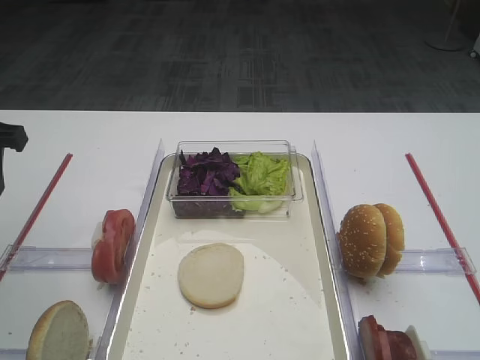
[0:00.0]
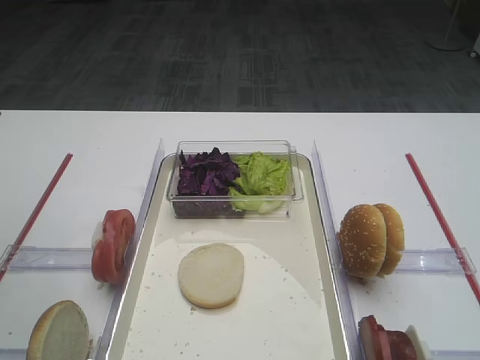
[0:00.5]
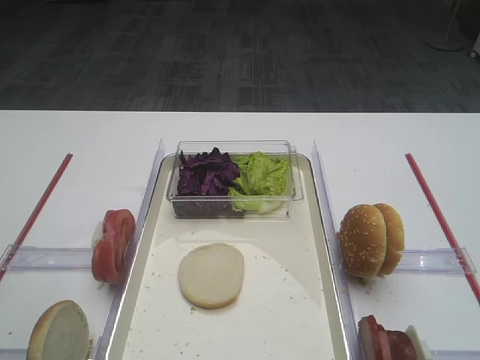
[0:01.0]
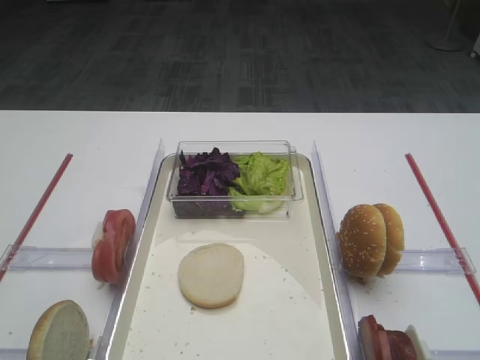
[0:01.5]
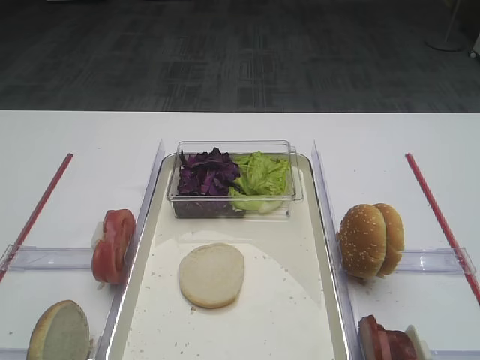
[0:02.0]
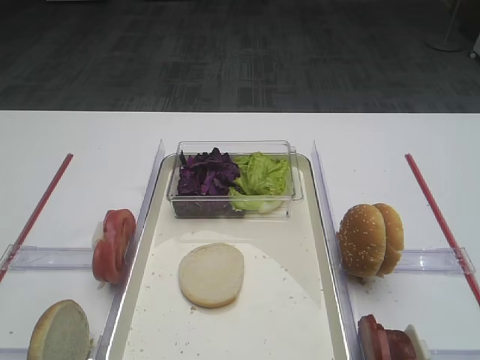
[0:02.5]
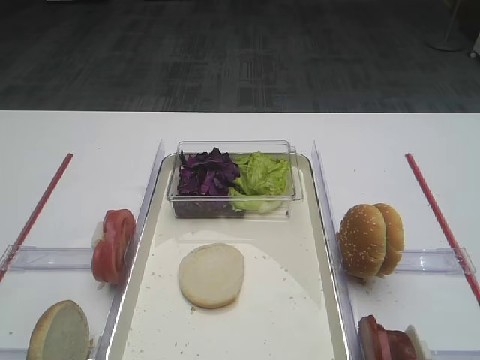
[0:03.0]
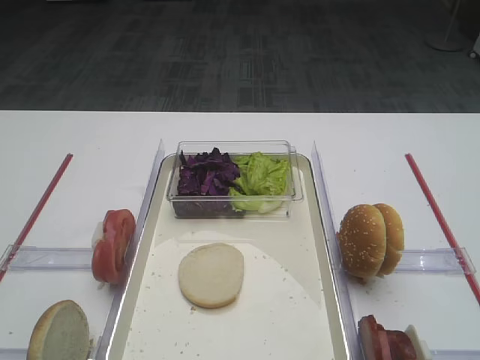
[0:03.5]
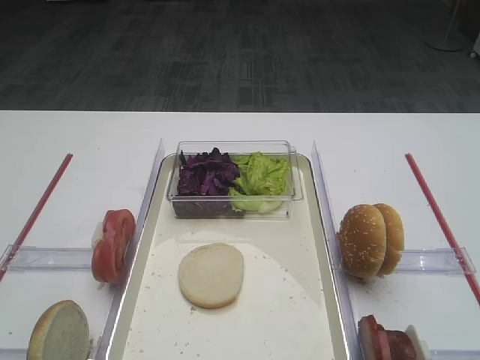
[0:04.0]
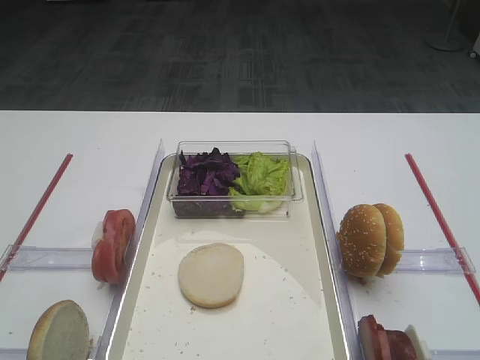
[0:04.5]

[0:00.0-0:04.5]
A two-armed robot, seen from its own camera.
0:00.0 to 0:02.0: The left gripper goes roughly 25 cm backward.

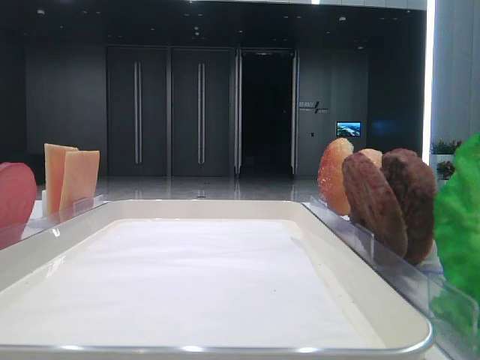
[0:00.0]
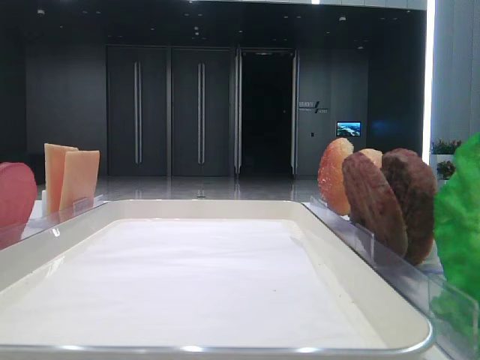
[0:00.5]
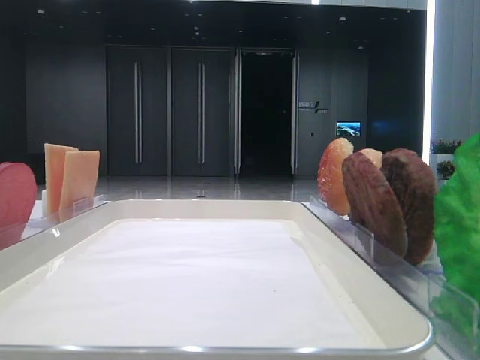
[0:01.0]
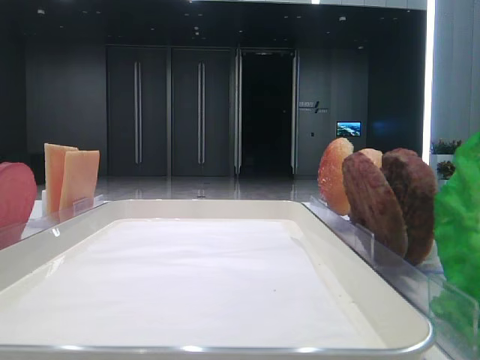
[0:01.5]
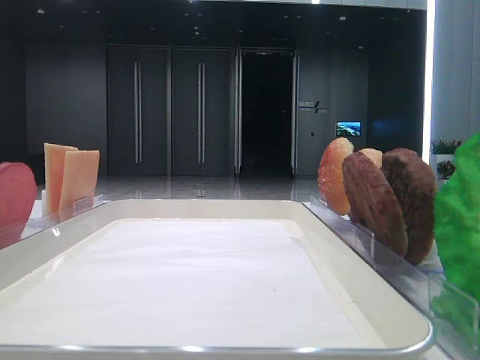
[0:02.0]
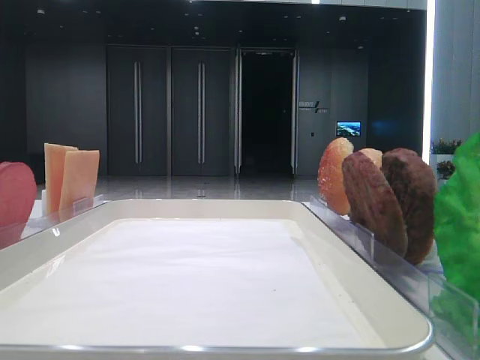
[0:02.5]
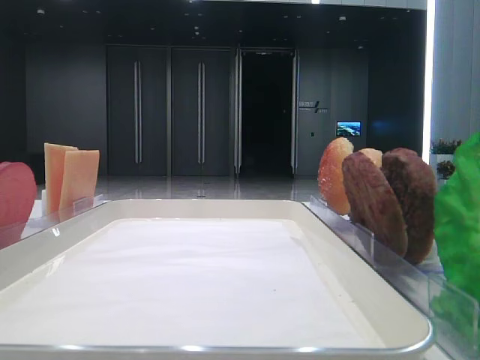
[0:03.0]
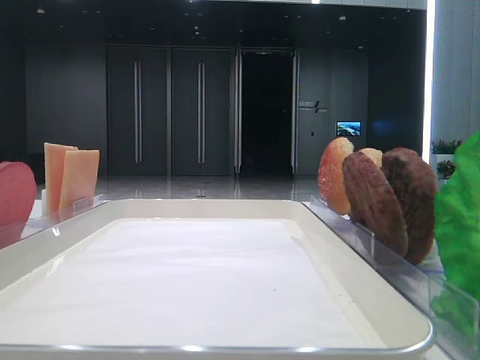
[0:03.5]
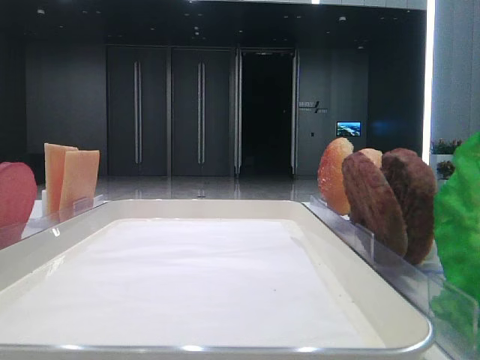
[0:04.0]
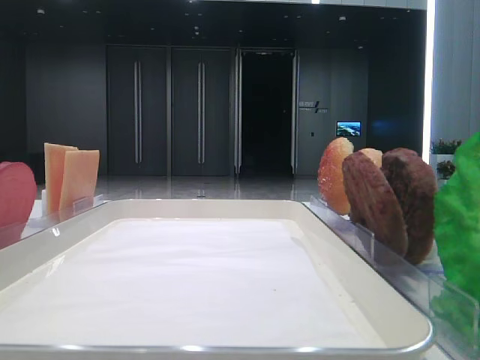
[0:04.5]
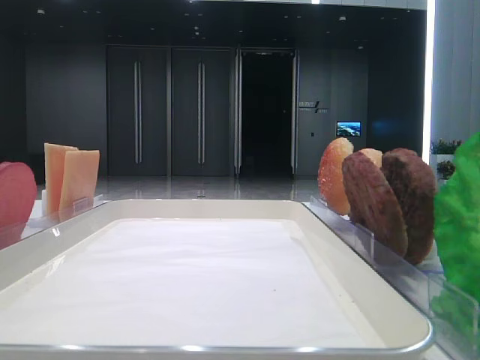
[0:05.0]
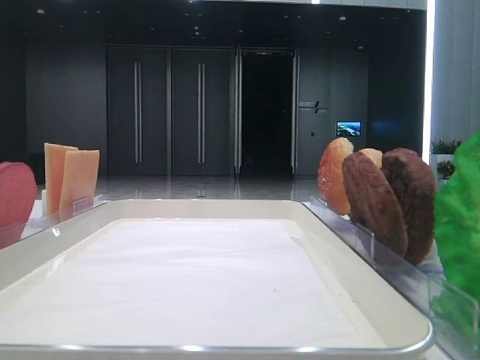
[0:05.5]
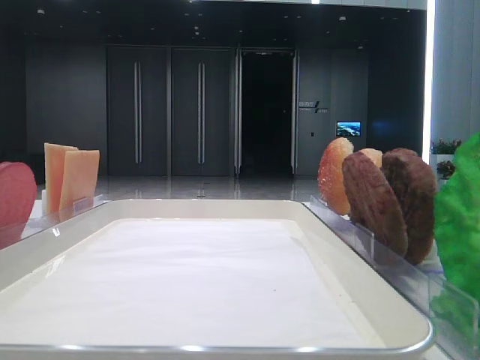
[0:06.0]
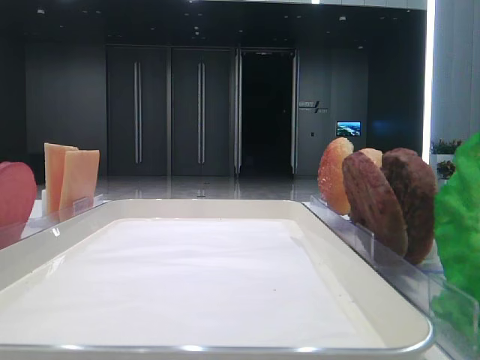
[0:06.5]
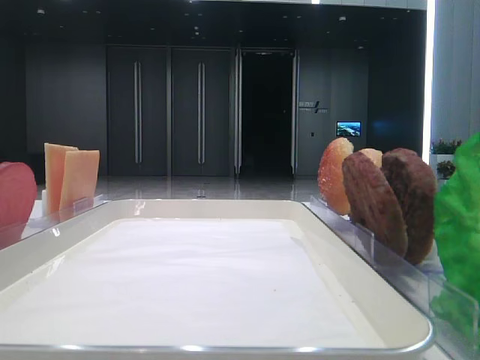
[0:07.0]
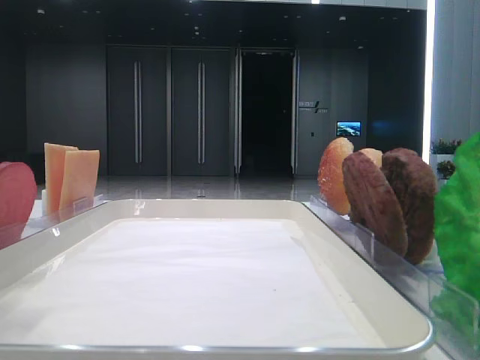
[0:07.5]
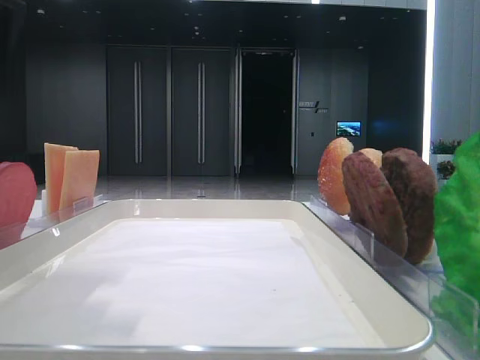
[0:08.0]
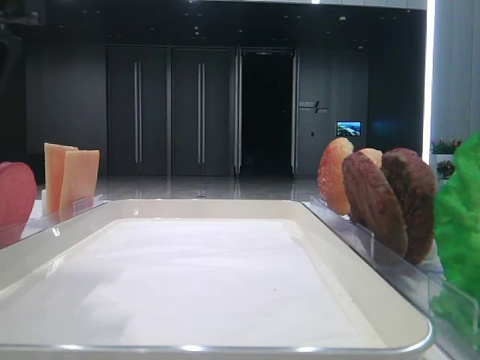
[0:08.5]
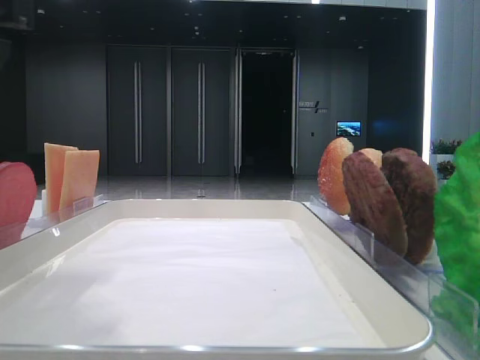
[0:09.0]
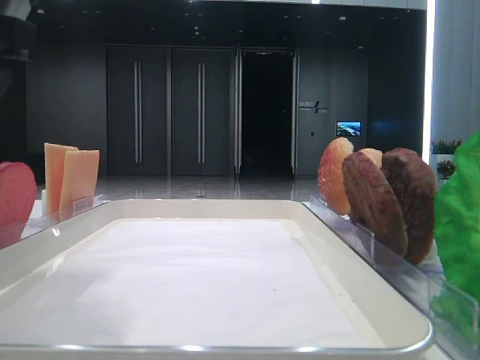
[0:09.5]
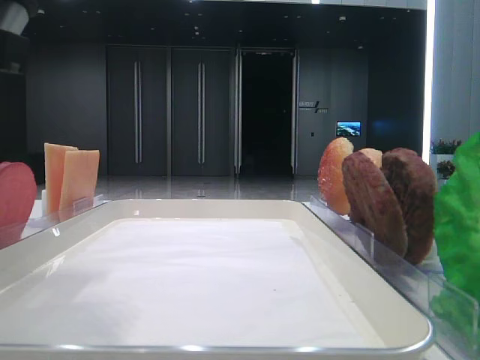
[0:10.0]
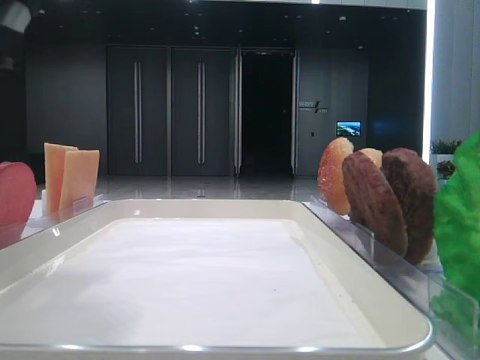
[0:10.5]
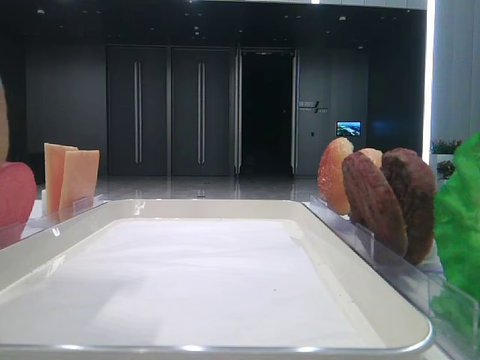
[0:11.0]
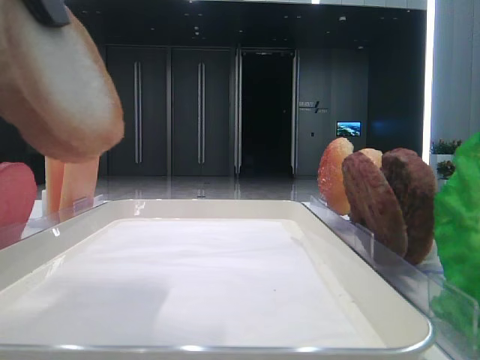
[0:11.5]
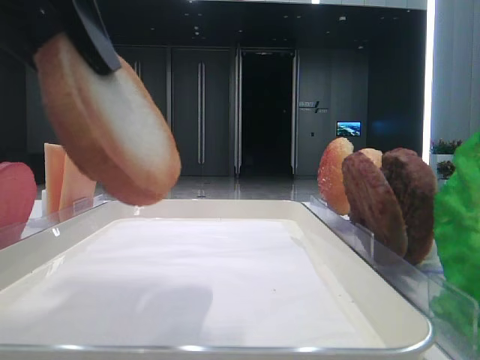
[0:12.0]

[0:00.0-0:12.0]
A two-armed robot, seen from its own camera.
Step, 0:00.0 to 0:10.0: Pick up the bottom bread with the left hand.
0:04.0 to 0:06.0: Both grippers stay about where they are.
0:06.0 to 0:08.0: The left gripper goes some 15 cm to the right.
0:10.0 to 0:12.0: The left gripper changes place by some 5 cm.

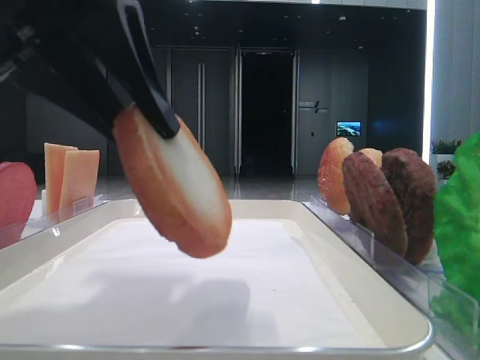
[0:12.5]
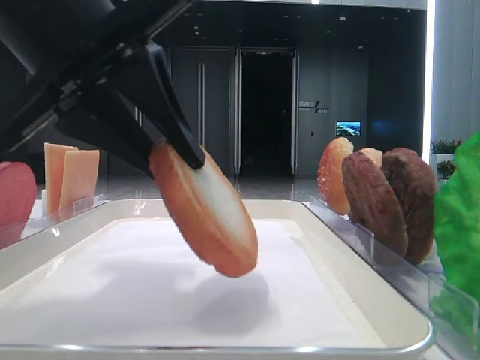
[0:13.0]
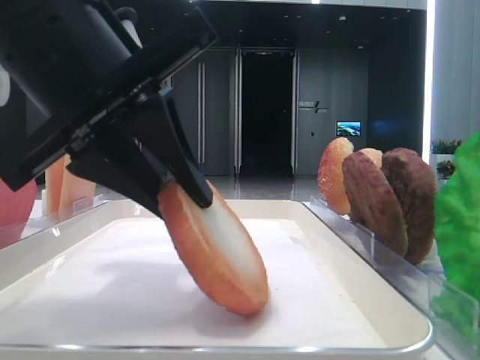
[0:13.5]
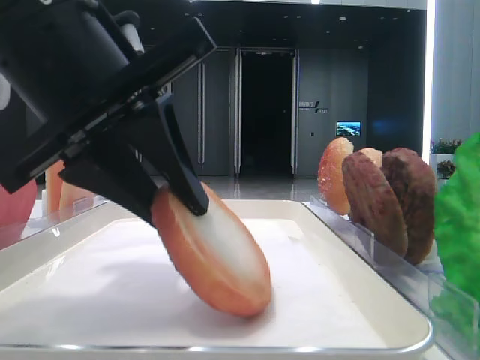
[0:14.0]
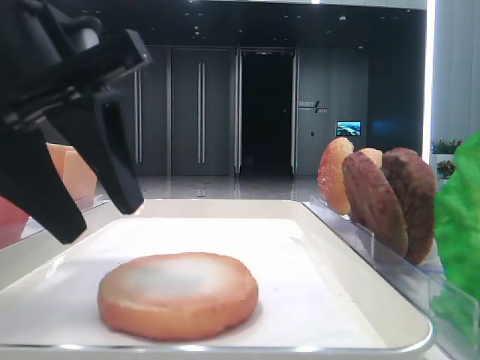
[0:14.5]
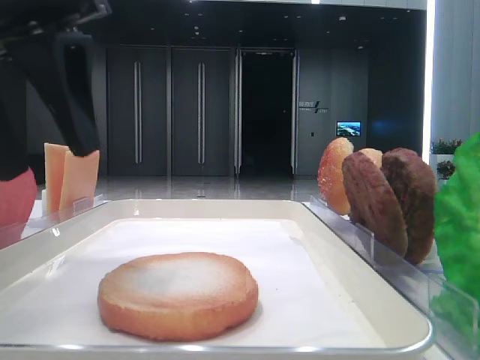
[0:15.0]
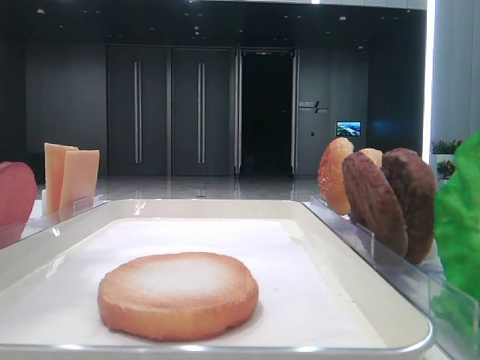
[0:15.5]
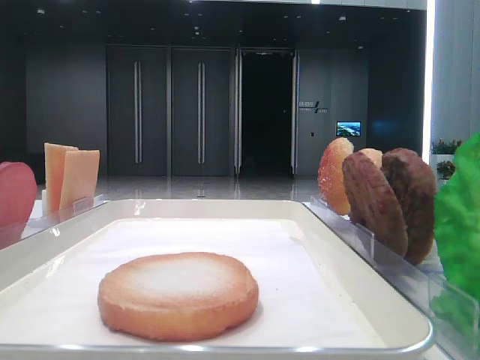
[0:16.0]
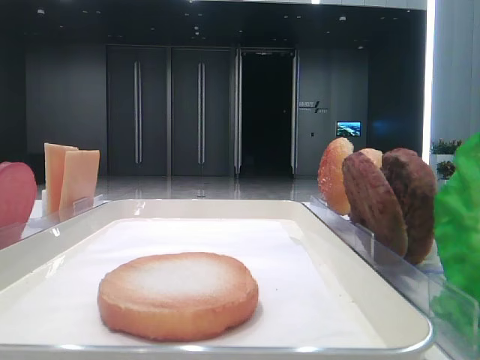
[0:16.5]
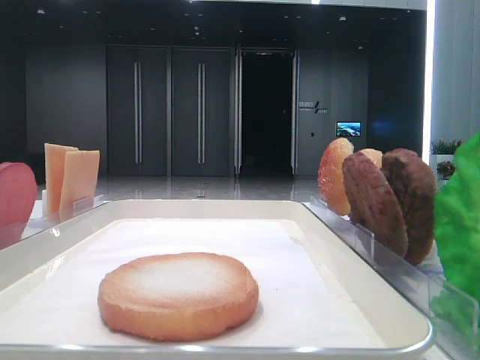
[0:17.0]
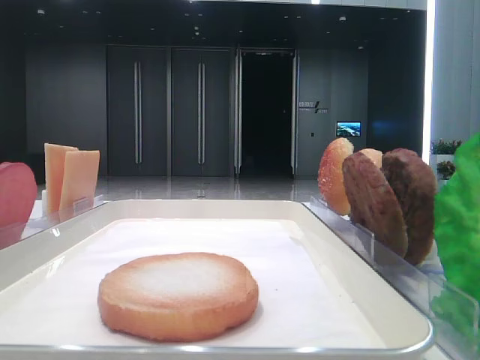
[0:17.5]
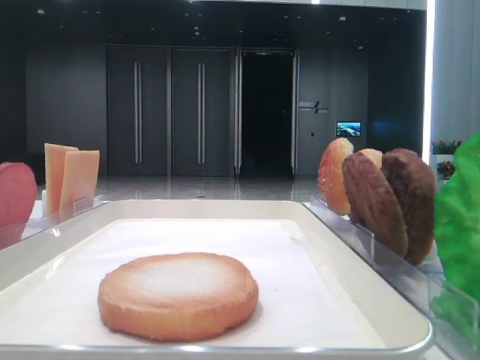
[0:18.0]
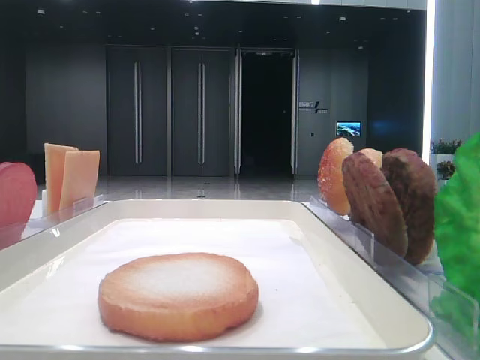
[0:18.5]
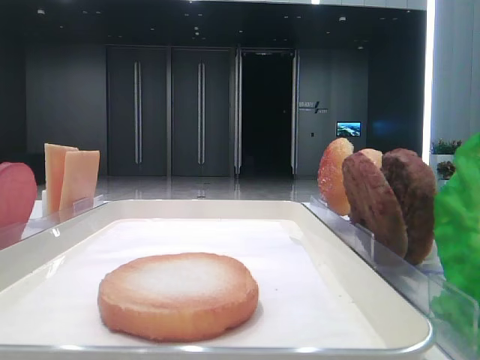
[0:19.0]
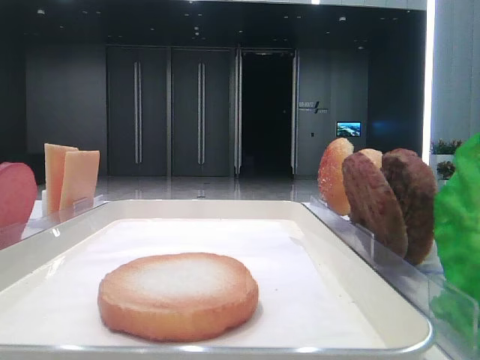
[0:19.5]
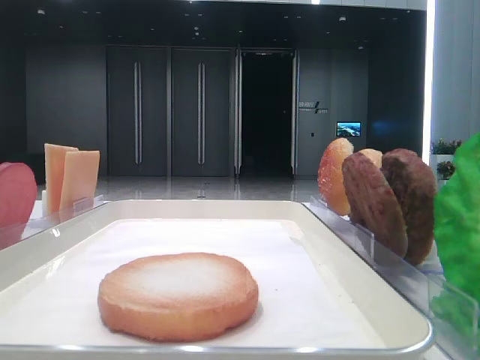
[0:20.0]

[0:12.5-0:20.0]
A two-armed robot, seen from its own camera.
0:12.5 to 0:14.5: The left gripper shifts by approximately 5 cm, and opens its fingers.
0:14.5 to 0:16.5: The left gripper shifts some 25 cm upward and to the left.

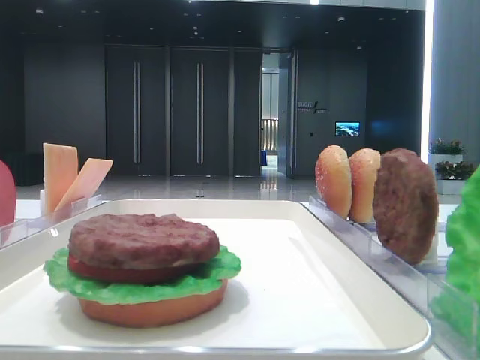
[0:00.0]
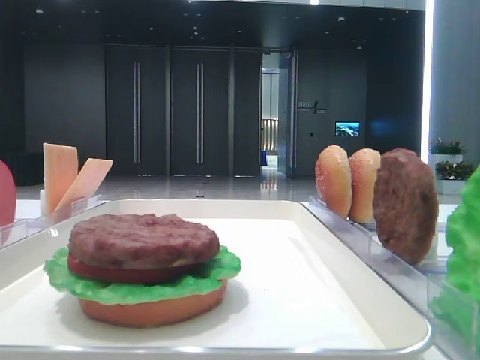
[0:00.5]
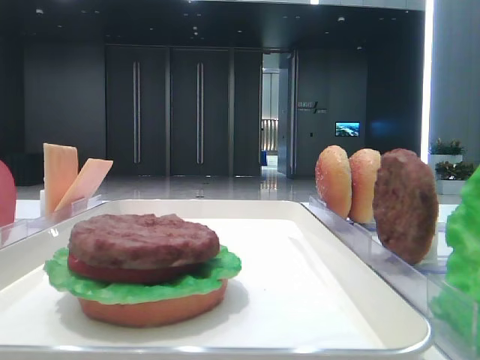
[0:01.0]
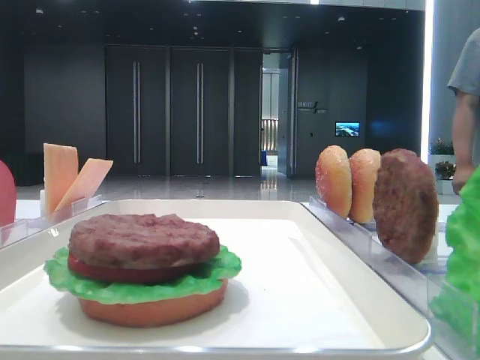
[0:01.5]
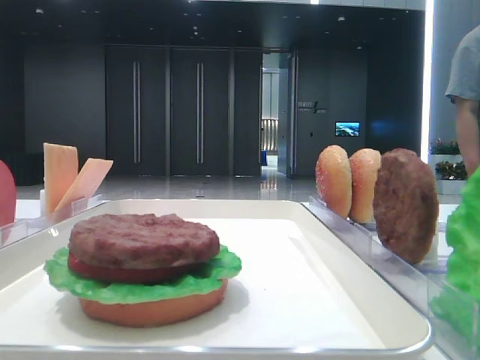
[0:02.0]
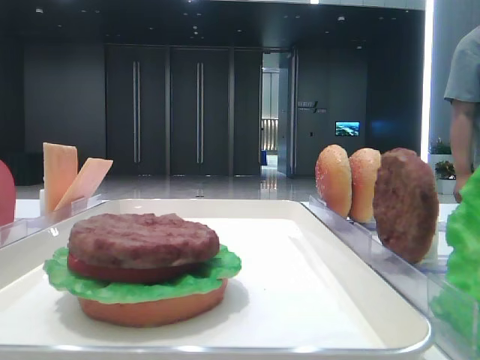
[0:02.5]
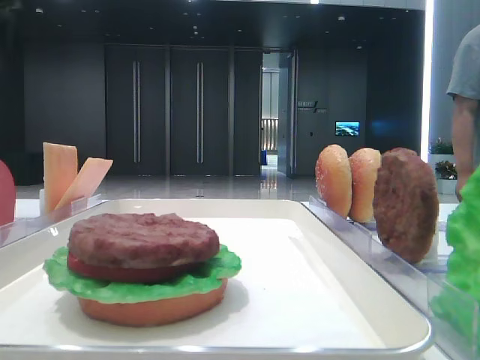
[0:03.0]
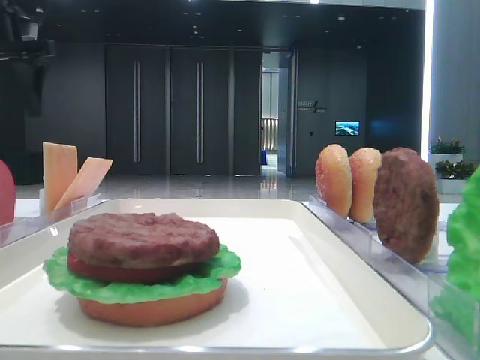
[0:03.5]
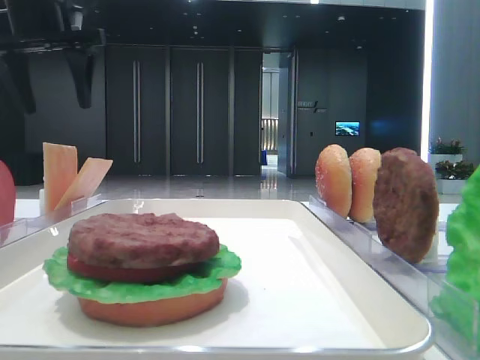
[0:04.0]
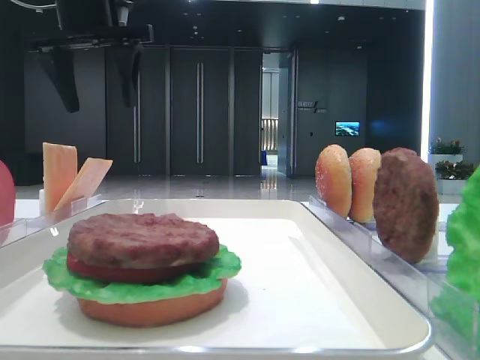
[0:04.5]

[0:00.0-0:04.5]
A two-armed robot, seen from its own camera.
0:02.0 to 0:04.5: The left gripper heads forward and to the right, covering some 30 cm.
